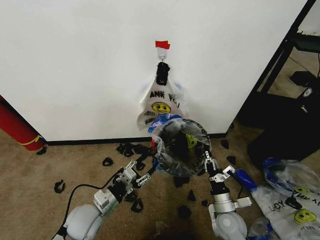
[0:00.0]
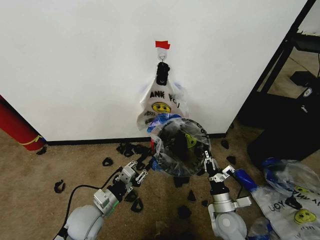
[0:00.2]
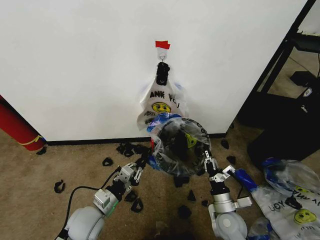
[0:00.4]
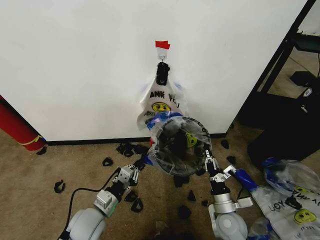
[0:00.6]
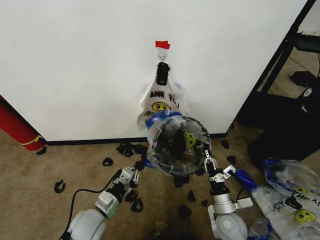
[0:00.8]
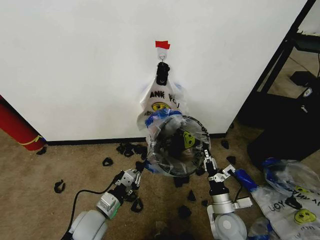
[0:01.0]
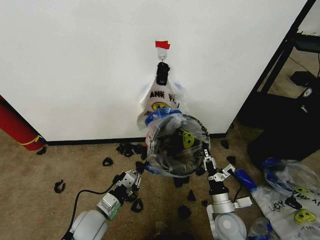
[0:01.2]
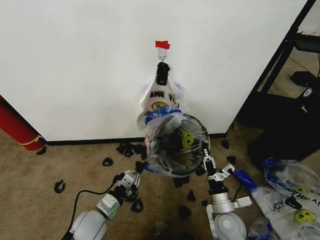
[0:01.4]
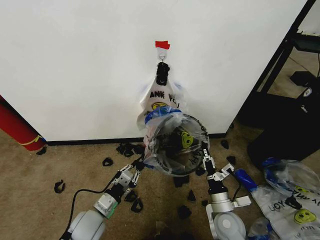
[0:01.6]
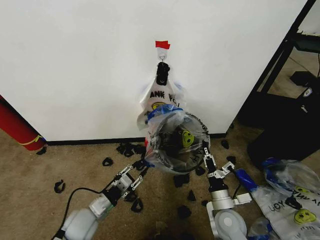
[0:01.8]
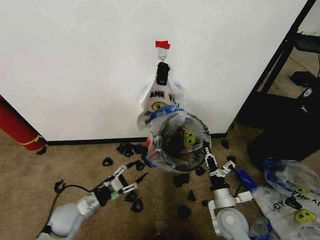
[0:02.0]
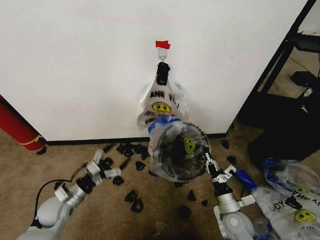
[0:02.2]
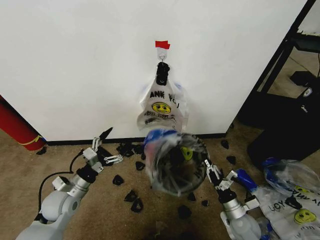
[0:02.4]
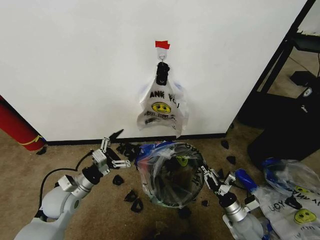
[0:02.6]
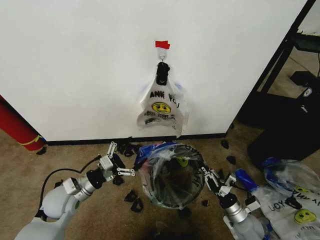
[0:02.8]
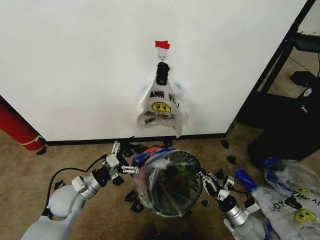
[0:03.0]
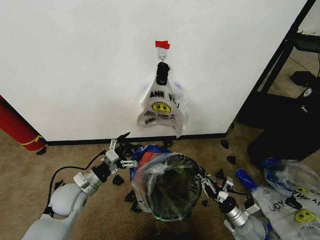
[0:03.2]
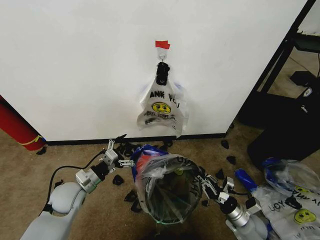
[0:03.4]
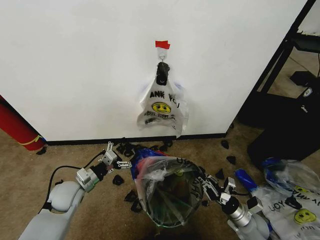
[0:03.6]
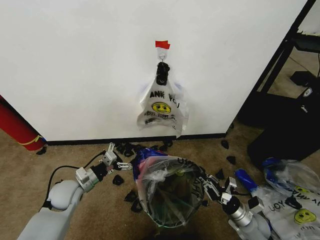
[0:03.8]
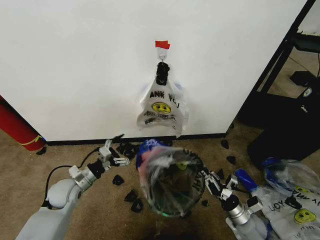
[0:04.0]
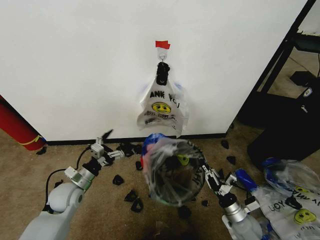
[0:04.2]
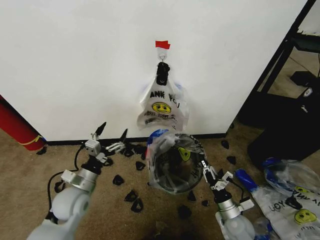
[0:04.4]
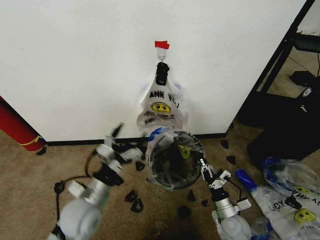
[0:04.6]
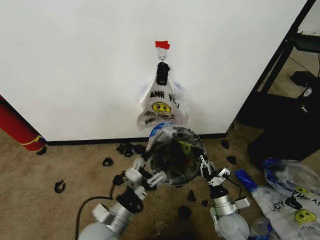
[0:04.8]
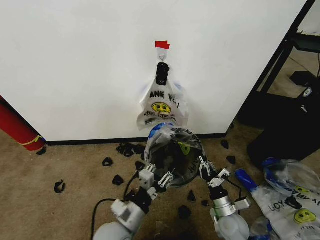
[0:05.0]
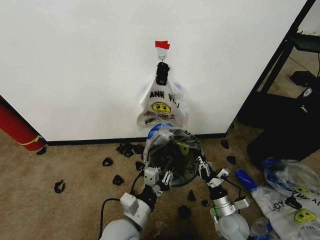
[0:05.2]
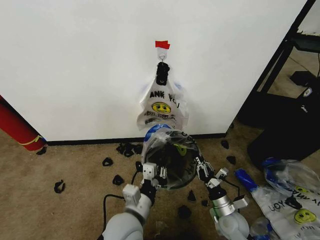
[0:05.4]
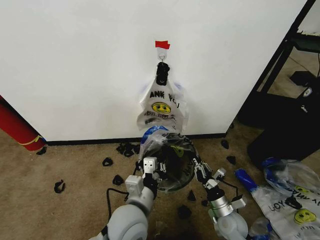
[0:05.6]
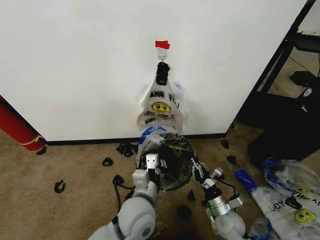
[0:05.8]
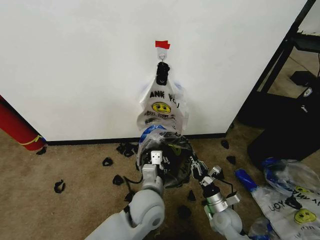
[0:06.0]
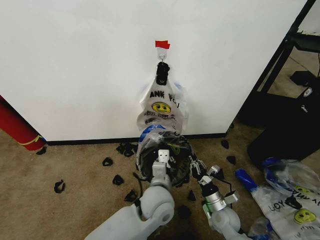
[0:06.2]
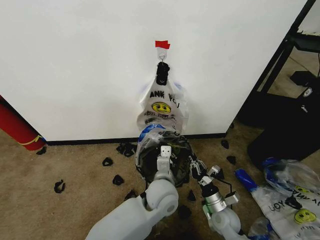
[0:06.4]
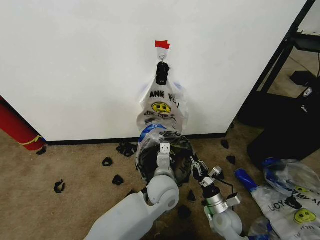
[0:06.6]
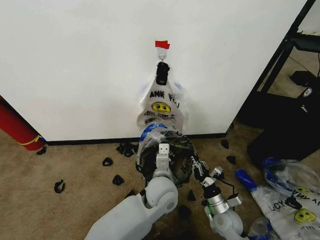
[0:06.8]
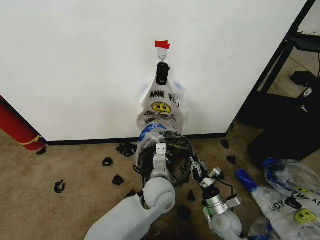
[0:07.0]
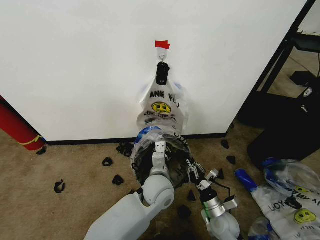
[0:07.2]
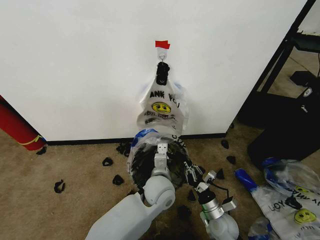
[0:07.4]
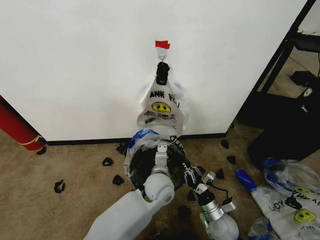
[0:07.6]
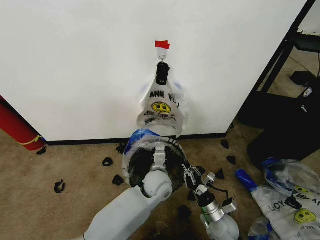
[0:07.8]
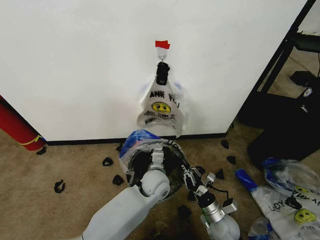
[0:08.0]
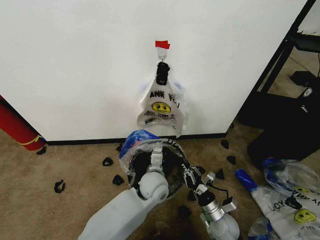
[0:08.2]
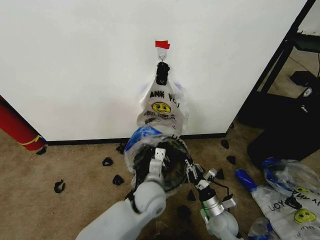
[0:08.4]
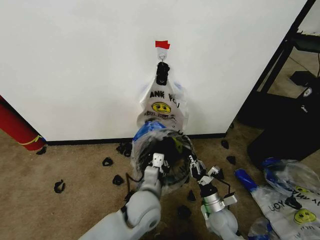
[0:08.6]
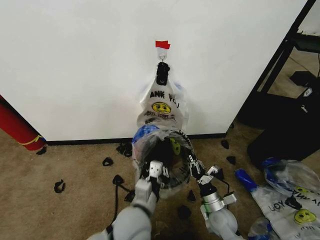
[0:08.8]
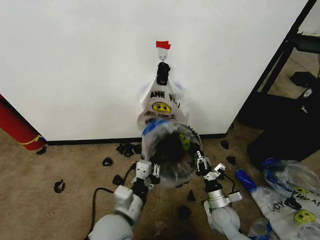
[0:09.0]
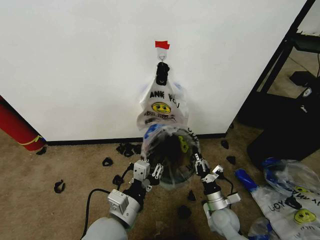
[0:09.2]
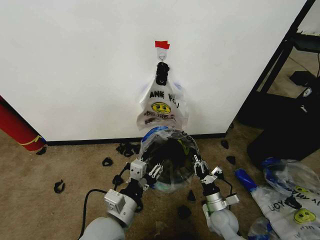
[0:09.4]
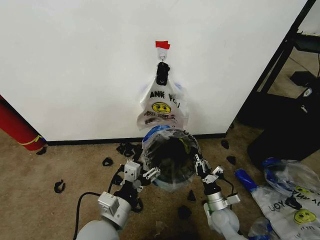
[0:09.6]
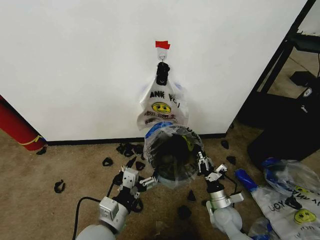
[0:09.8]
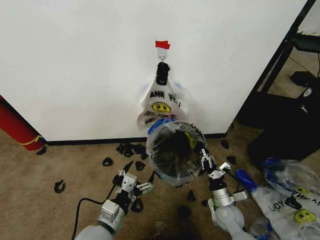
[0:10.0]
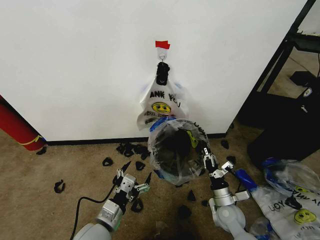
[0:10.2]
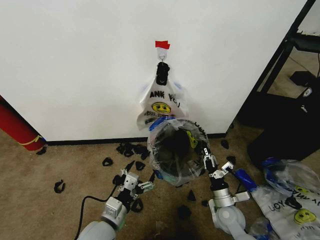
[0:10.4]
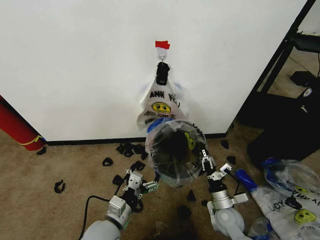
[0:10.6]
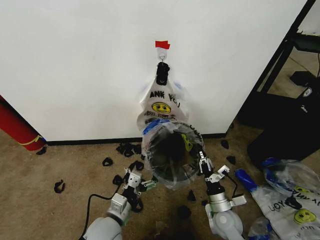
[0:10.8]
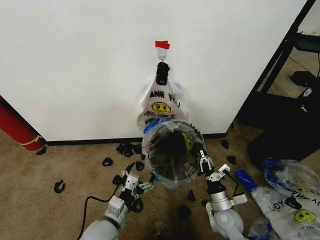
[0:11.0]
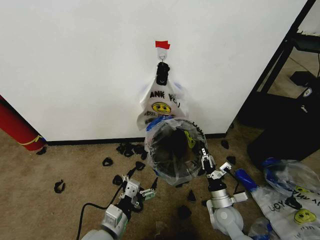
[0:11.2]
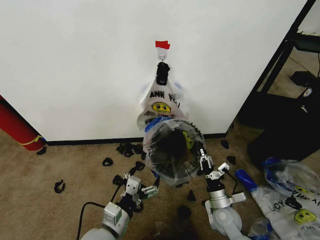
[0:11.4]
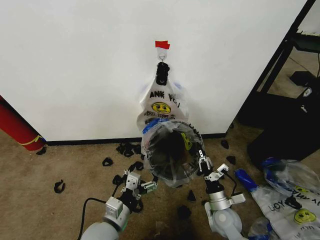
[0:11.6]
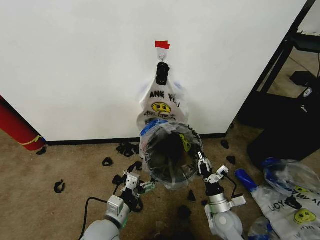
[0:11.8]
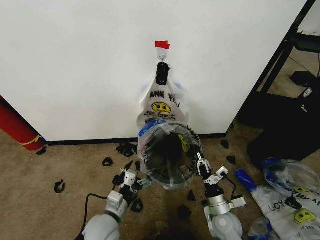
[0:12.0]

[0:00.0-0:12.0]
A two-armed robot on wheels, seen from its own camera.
Task of the whole recording: Pick up the garbage bag from the wall and place it over the trash bin.
0:00.0 to 0:01.6: The grippers move only a little.
0:01.6 to 0:03.0: The left gripper shifts roughly 10 cm to the left, forward and upward, and opens. The right gripper moves to the right and downward, some 10 cm.
0:04.4 to 0:06.0: The left gripper travels to the right by roughly 20 cm, and closes its fingers.
0:06.0 to 0:07.6: The left gripper goes some 10 cm forward.
0:07.6 to 0:09.0: The left gripper heads backward and to the left, covering about 20 cm.
0:09.0 to 0:10.4: The left gripper shifts some 10 cm downward and to the left, and opens up.
0:10.4 to 0:12.0: The grippers make only small movements.

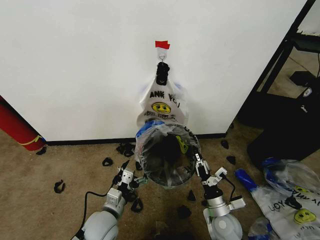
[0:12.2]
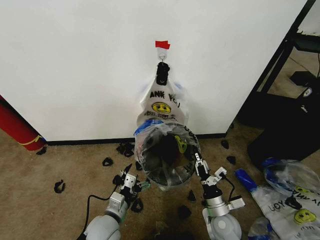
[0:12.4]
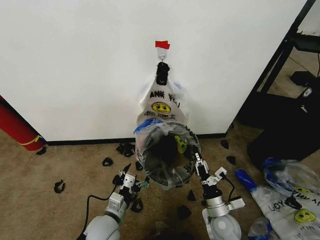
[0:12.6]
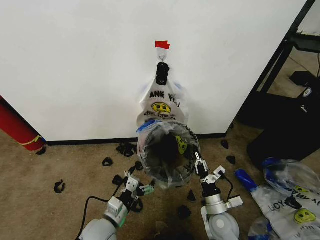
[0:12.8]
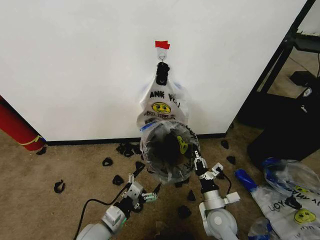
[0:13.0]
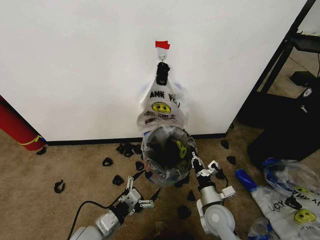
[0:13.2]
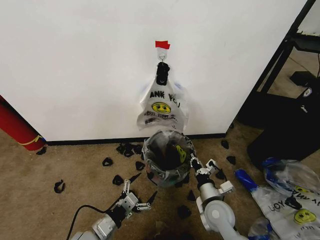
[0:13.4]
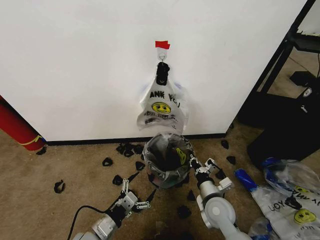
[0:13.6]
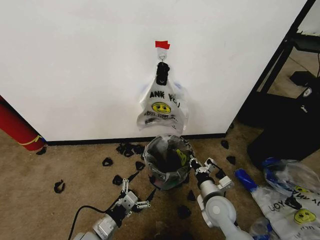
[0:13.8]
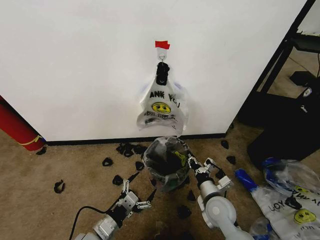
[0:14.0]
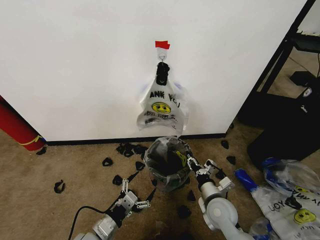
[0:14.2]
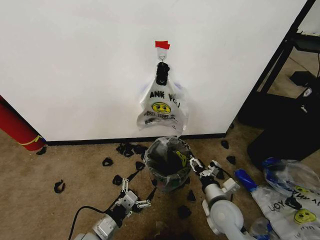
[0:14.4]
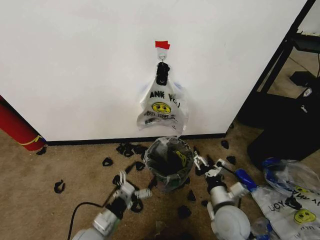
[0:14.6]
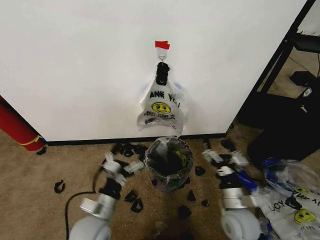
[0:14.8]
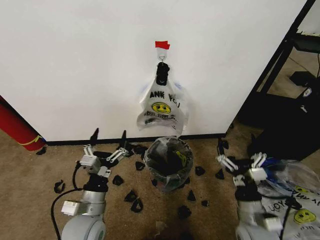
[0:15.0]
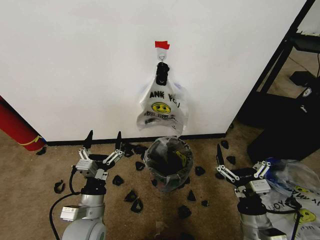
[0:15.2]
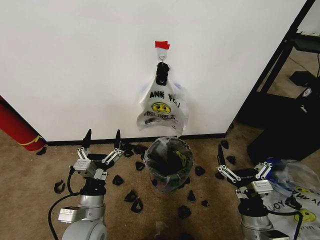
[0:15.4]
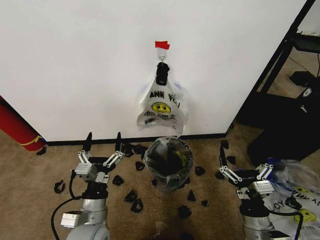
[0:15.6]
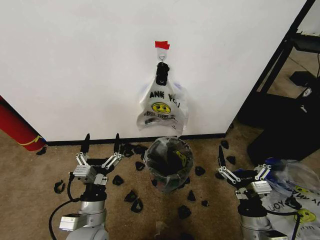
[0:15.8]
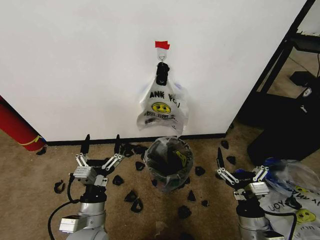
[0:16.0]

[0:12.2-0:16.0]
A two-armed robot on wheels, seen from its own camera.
Task of the whole recording: Pick up the garbage bag from the wall and place it over the trash bin.
0:12.2 to 0:13.4: The right gripper changes place by some 5 cm, while the left gripper shifts by some 5 cm.
0:13.4 to 0:14.8: The right gripper ends up roughly 5 cm from where it was, and opens up. Meanwhile the left gripper moves upward, roughly 5 cm.
0:14.8 to 0:16.0: The right gripper heads backward, covering about 10 cm.
